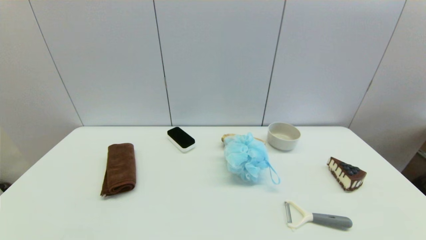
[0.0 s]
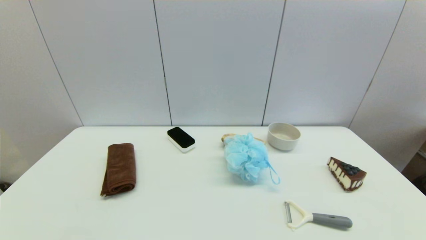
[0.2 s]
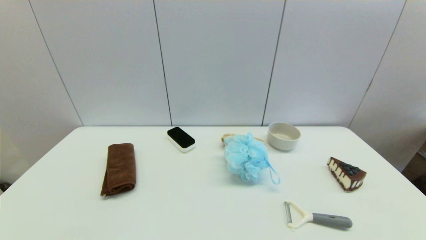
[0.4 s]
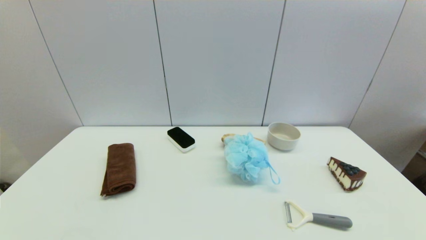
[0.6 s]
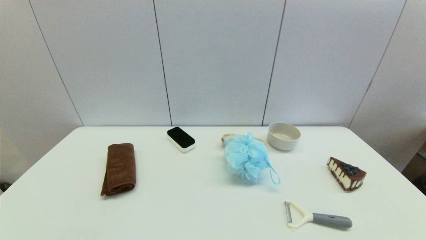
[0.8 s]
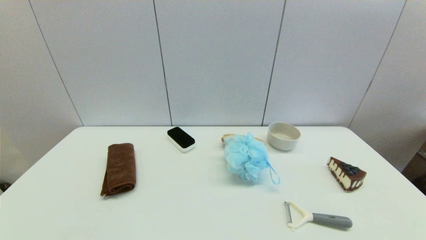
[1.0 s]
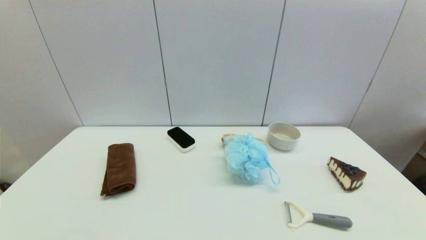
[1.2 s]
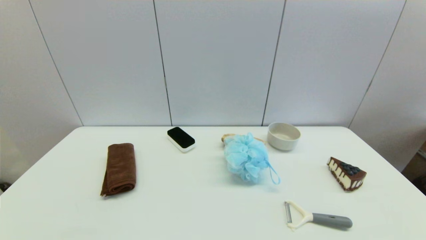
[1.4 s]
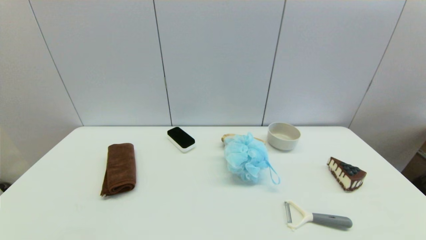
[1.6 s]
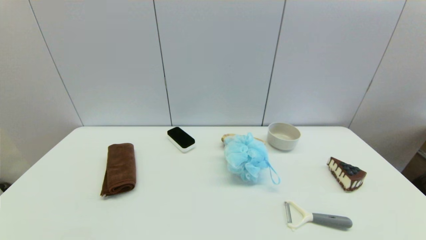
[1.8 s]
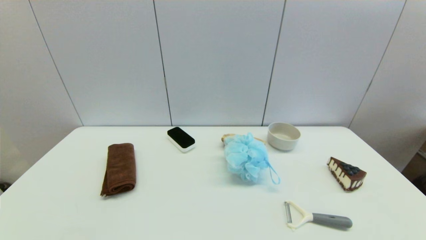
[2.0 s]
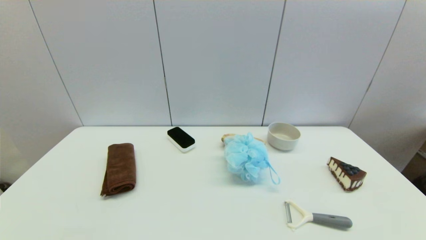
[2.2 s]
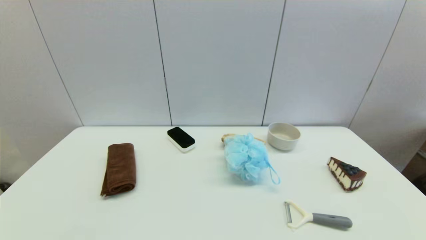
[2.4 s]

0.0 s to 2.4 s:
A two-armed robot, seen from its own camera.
0.0 to 2.4 s: Neither gripper changes place.

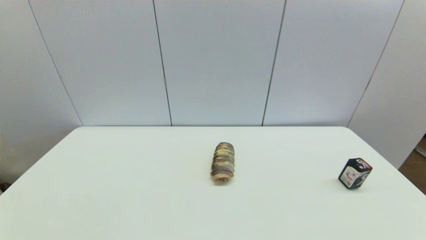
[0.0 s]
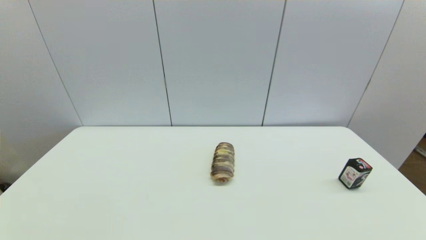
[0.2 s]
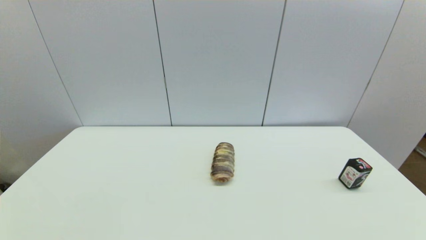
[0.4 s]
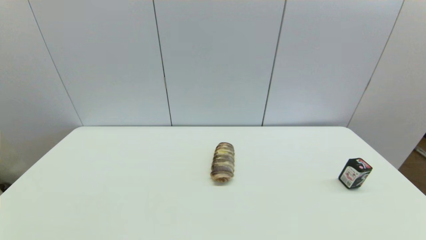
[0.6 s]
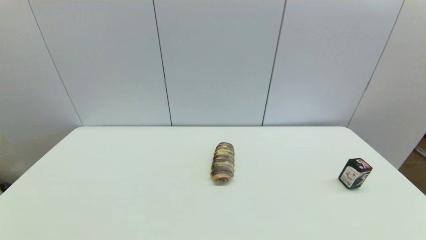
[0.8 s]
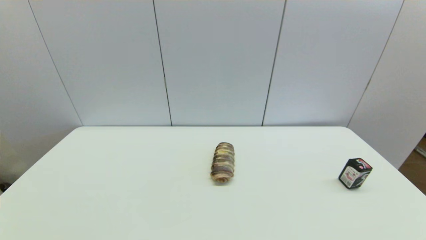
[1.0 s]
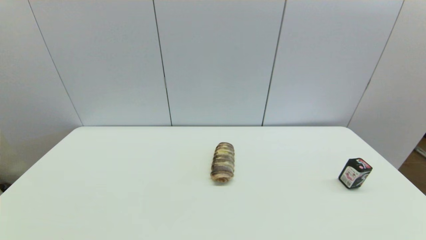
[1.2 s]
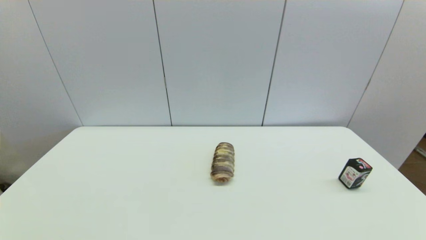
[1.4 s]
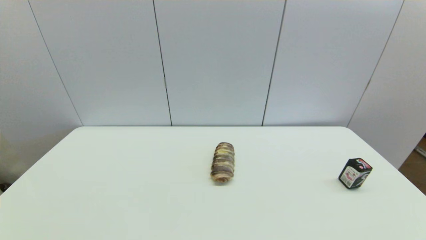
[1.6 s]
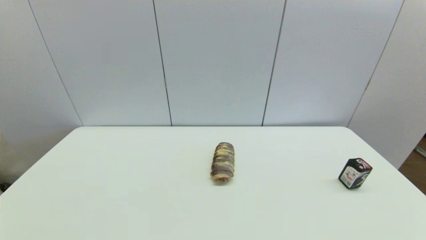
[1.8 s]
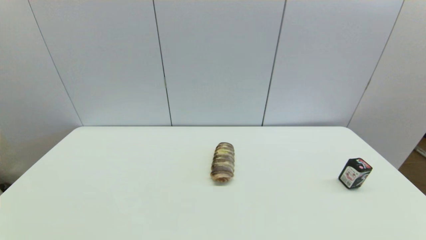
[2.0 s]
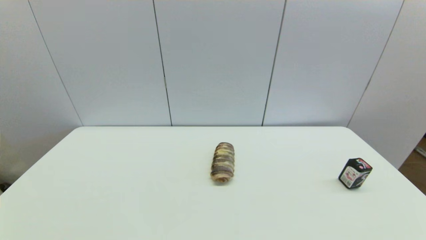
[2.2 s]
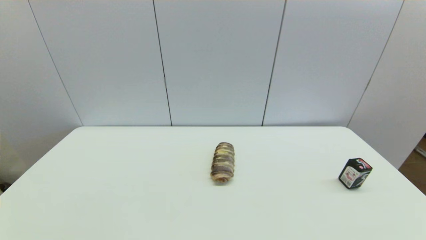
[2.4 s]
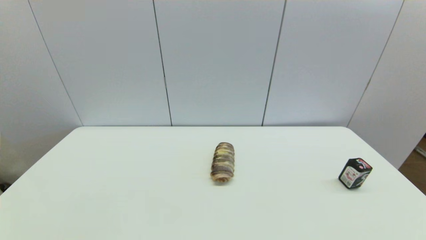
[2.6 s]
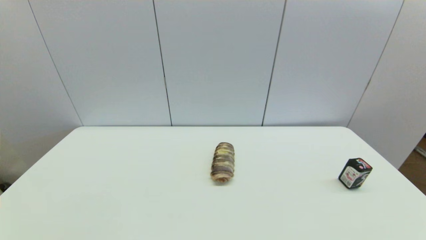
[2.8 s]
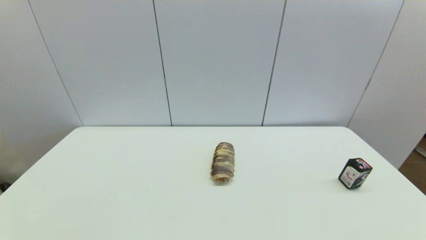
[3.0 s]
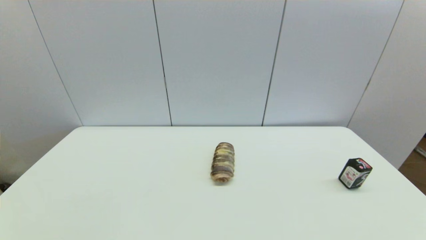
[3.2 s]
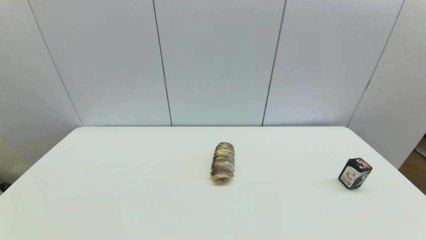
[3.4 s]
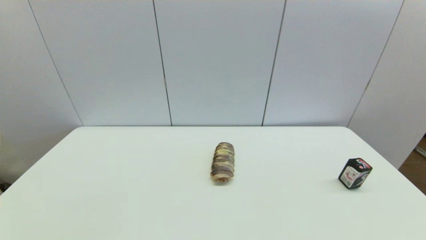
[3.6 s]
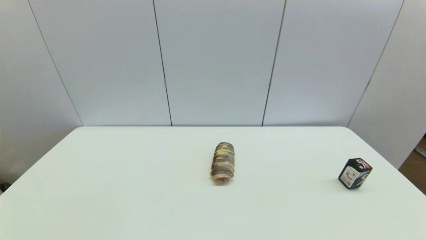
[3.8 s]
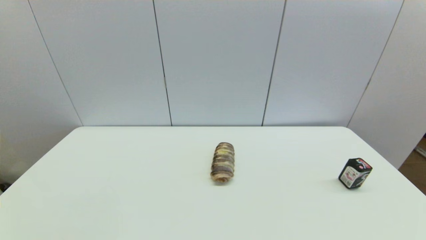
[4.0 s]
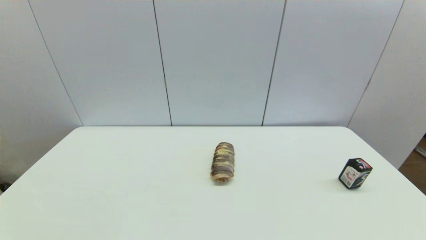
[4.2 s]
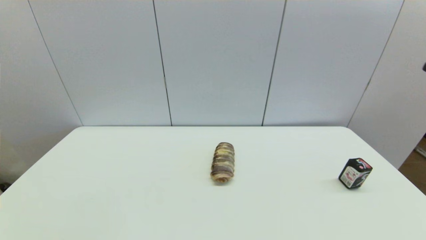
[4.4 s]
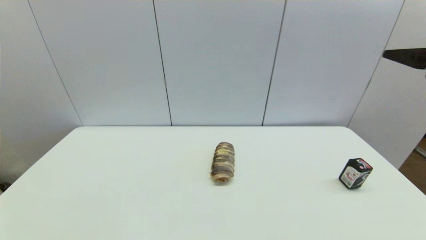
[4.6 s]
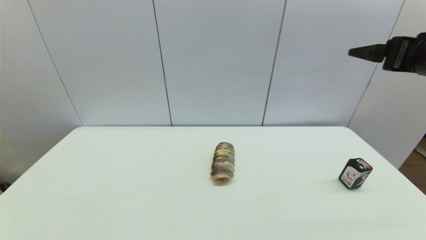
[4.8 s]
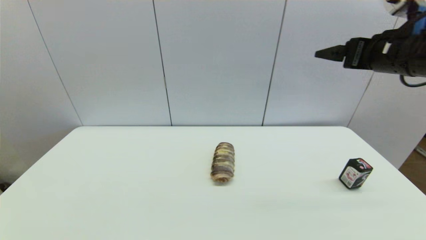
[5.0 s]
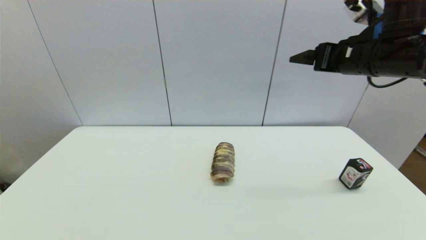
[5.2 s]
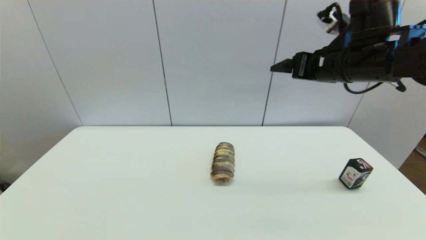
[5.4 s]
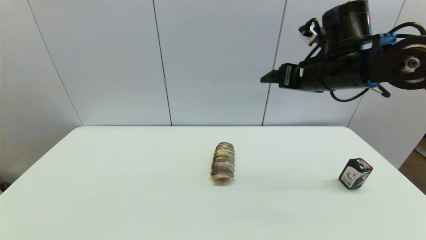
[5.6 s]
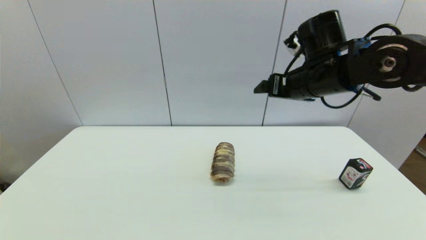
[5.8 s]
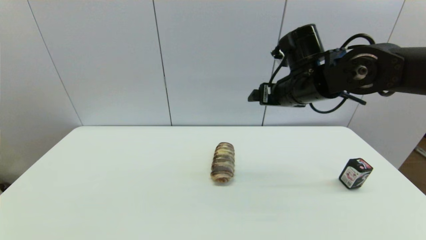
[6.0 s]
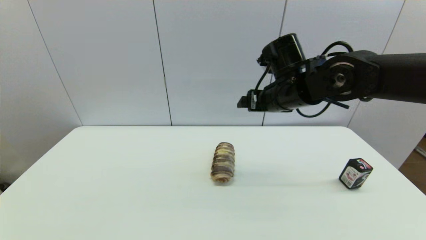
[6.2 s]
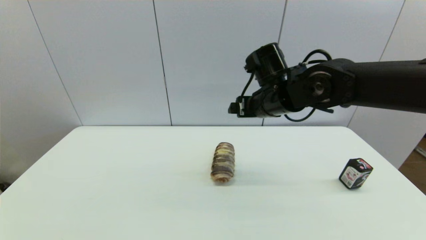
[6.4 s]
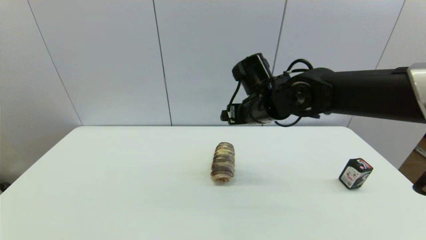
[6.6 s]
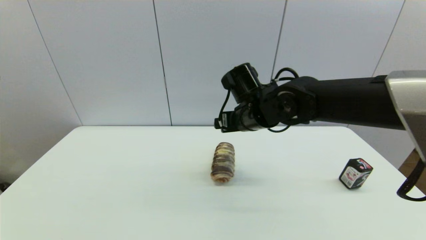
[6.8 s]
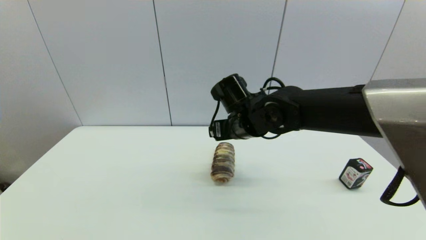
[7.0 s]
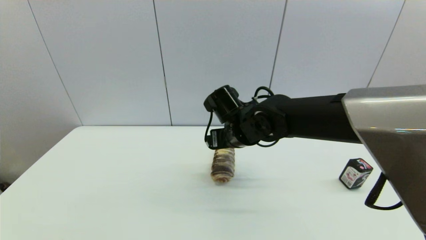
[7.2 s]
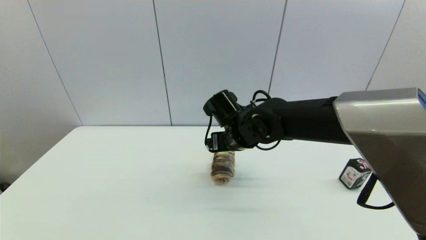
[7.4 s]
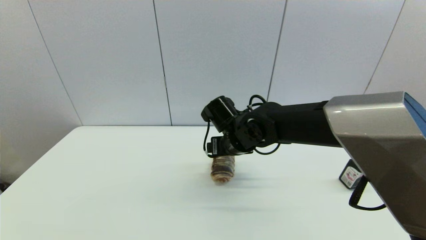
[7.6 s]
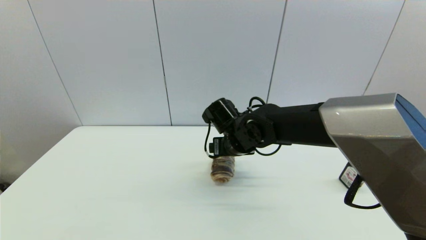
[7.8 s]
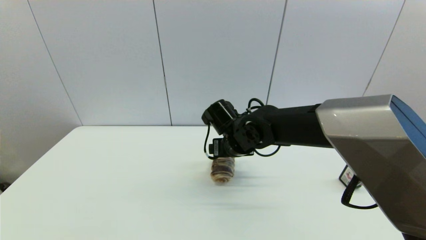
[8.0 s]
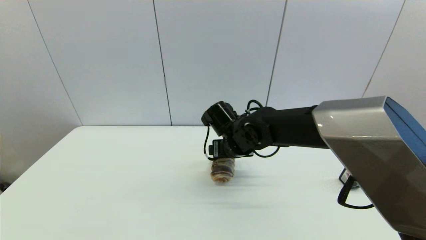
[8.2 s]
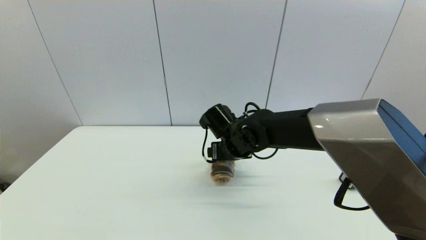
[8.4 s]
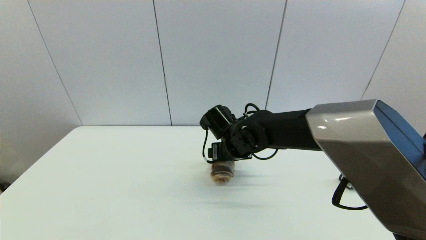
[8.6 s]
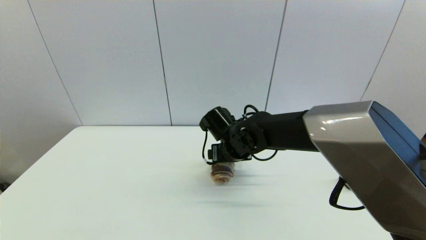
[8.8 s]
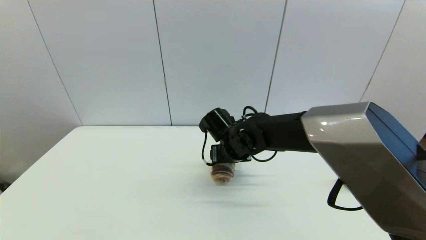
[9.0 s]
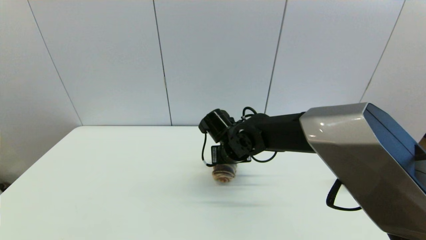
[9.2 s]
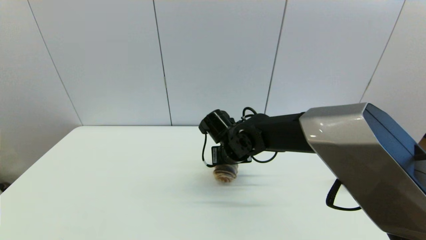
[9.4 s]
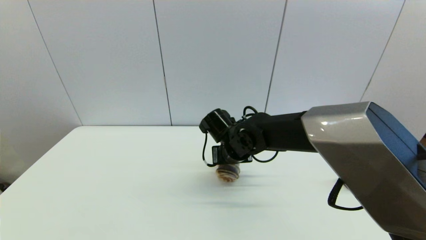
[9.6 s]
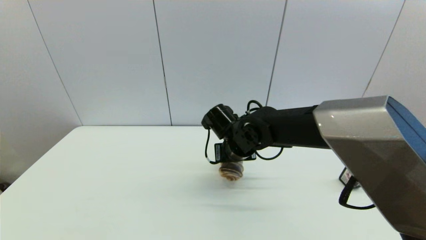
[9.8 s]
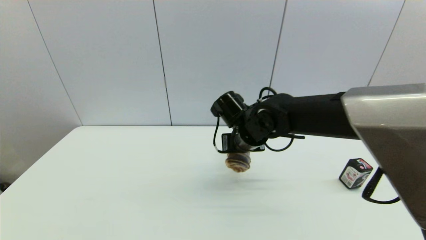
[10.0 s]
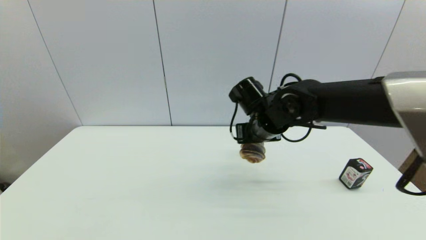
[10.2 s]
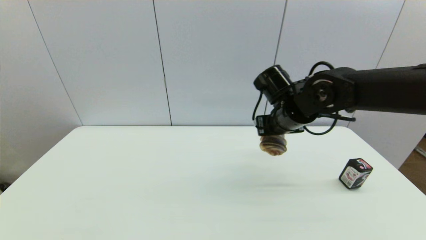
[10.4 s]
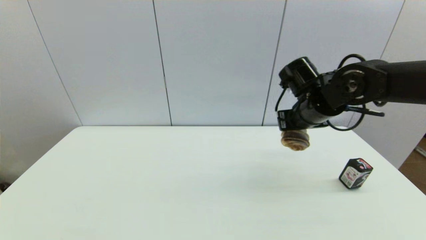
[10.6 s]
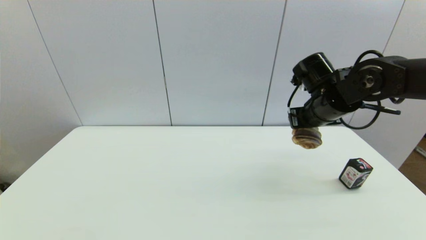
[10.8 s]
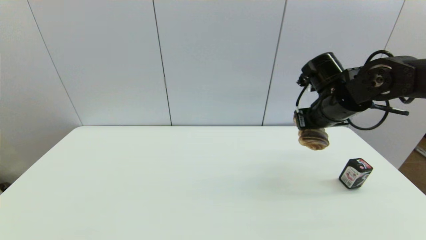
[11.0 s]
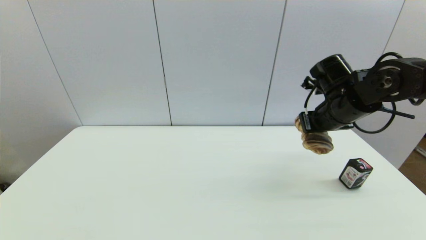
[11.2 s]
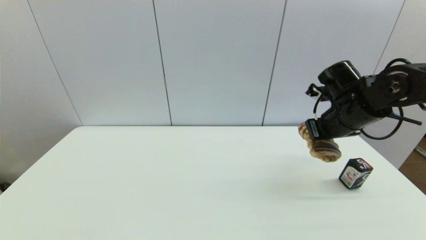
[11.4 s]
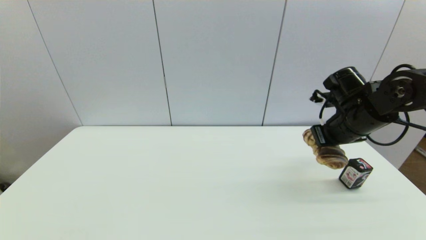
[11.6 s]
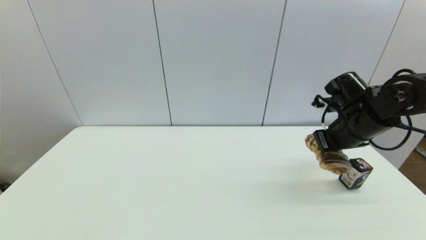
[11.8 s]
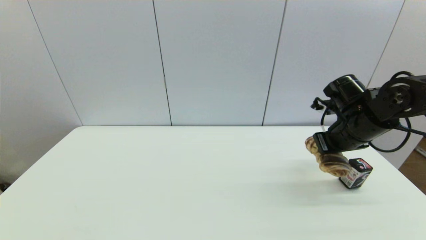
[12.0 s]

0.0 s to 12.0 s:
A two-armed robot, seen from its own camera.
Step, 4.4 to 9.4 s: Grasp the long bread with right gripper.
0.0 to 3.0 s: Neither gripper changes place.
4.4 to 6.0 s: The right gripper shifts approximately 30 cm forward and to the left.
6.0 to 7.6 s: The right gripper shifts about 15 cm downward and to the left.
7.6 to 9.0 s: The grippers move only a little.
9.0 to 10.4 s: The right gripper heads to the right and upward, covering about 15 cm, and closes its fingers.
10.4 to 12.0 s: The right gripper travels to the right by roughly 10 cm.

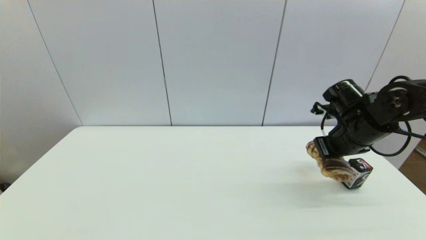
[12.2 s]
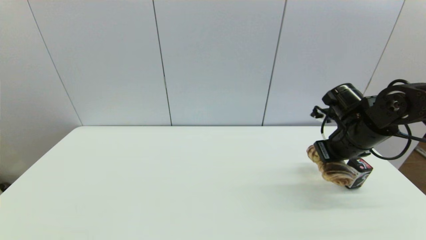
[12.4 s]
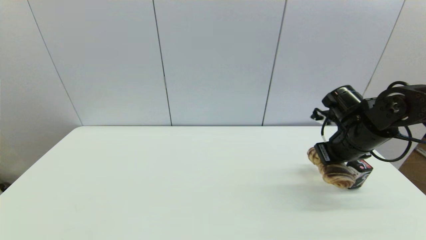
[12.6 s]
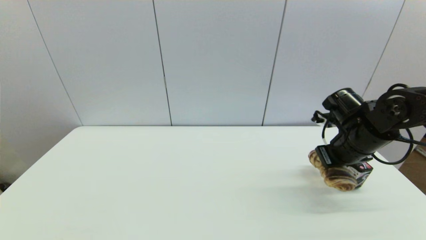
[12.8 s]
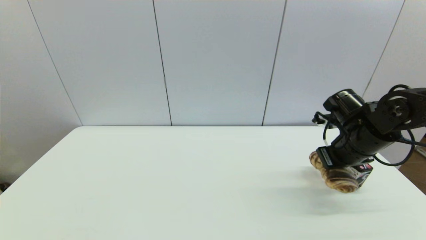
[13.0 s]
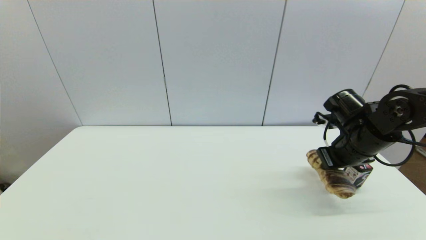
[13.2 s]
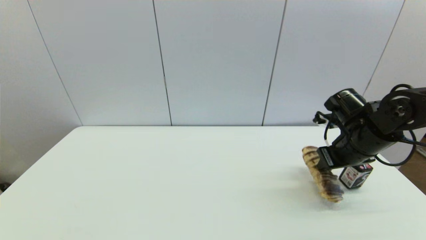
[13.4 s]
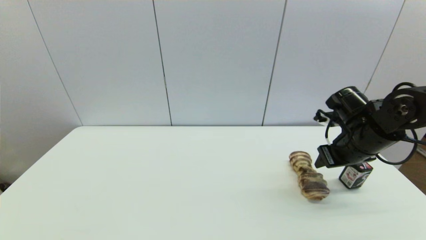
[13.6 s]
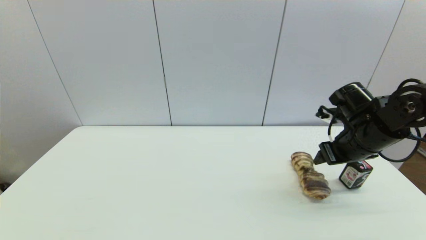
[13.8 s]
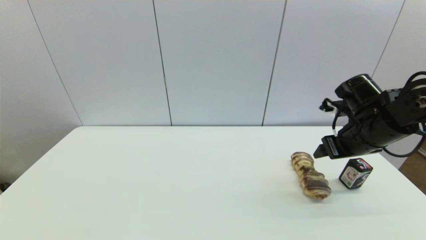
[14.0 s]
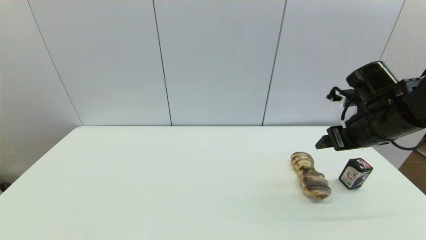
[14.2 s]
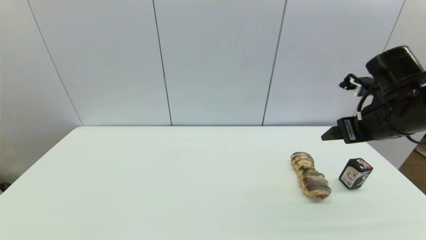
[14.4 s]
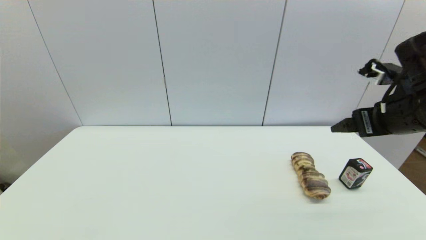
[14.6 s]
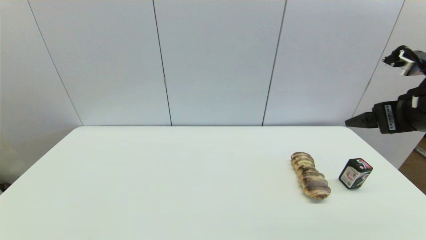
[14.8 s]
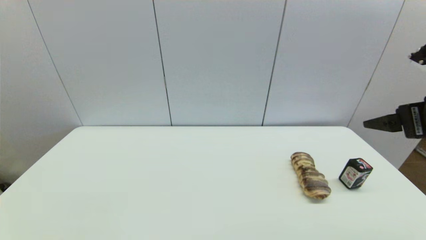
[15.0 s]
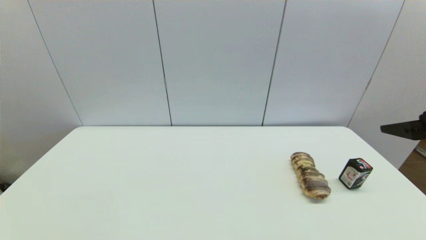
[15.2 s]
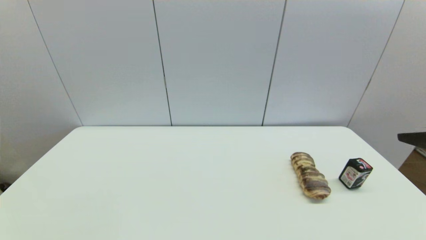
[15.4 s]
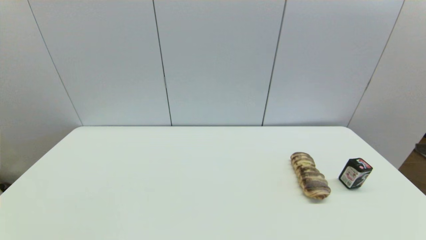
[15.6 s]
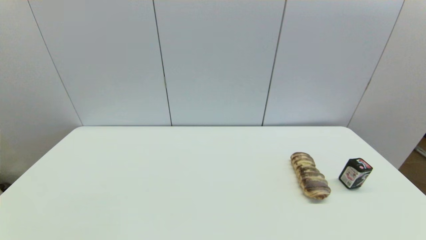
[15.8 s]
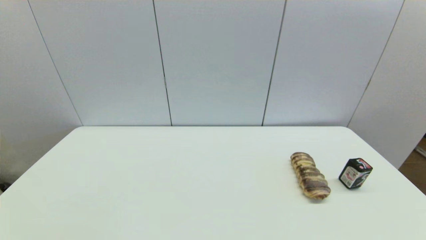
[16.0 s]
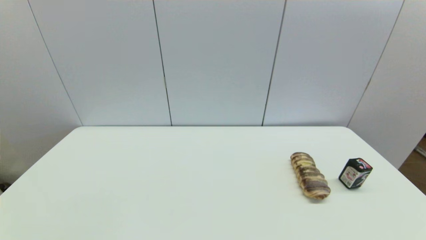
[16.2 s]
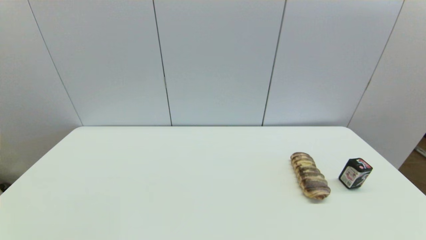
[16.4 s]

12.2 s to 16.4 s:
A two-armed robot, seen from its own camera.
12.2 to 13.6 s: The right gripper opens up.
13.6 to 15.0 s: The right gripper goes roughly 15 cm upward and backward.
15.0 to 16.4 s: The right gripper travels backward by approximately 15 cm.
